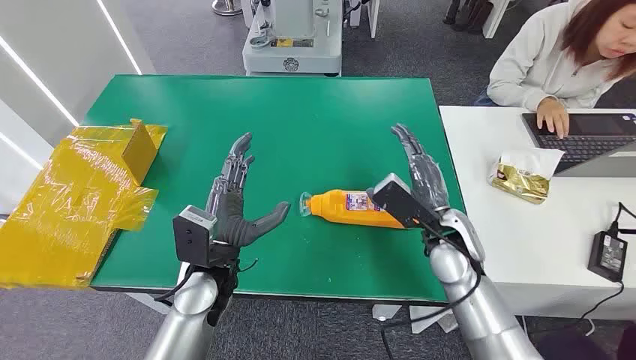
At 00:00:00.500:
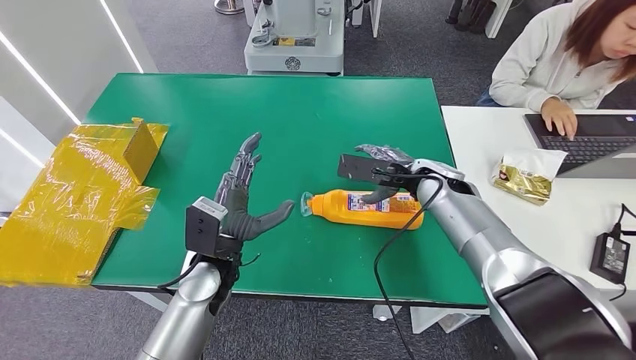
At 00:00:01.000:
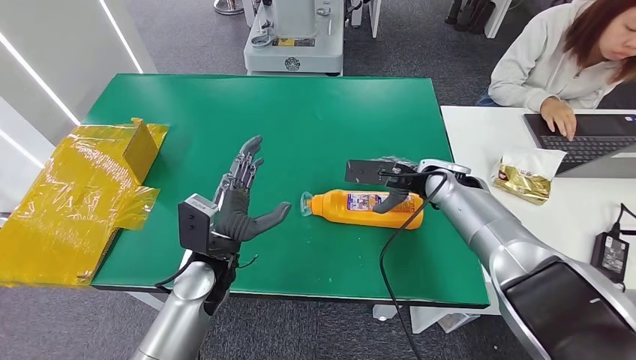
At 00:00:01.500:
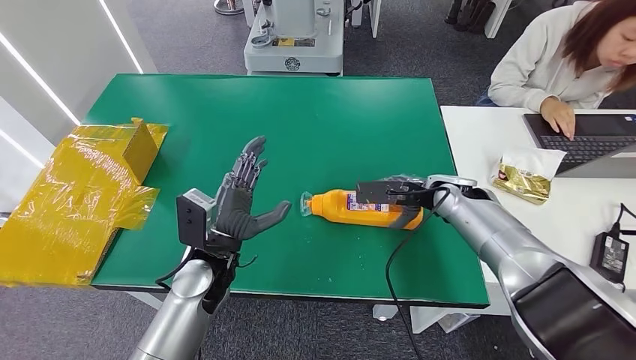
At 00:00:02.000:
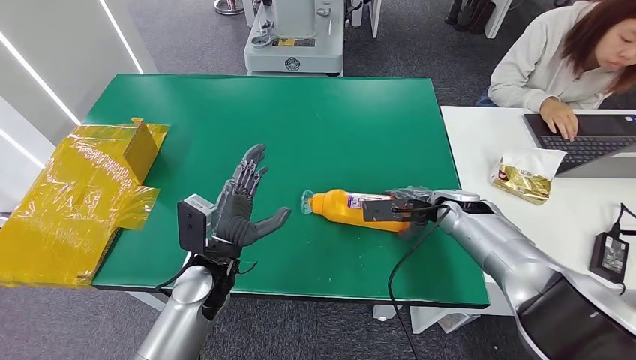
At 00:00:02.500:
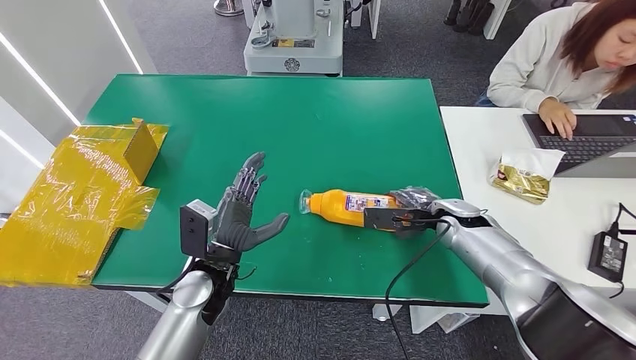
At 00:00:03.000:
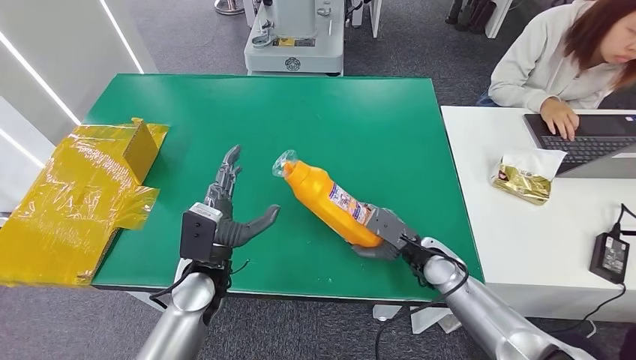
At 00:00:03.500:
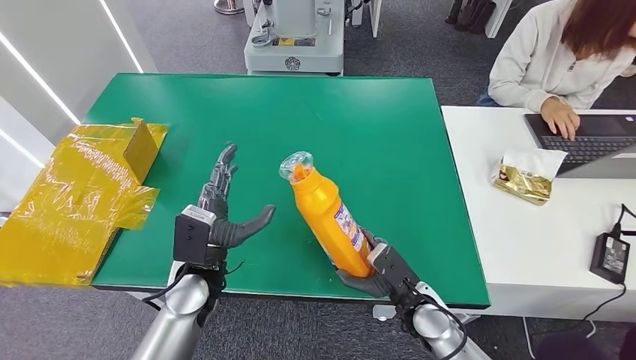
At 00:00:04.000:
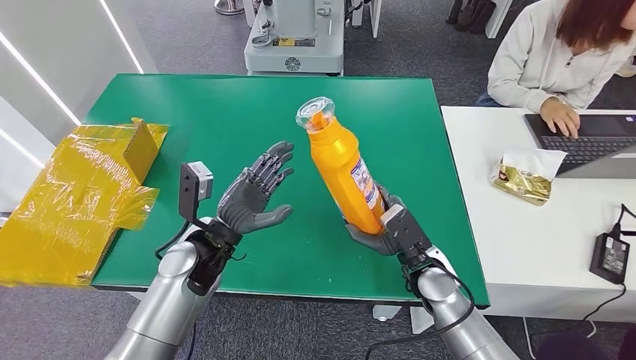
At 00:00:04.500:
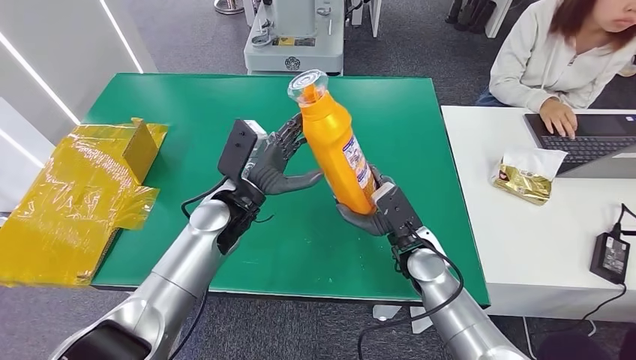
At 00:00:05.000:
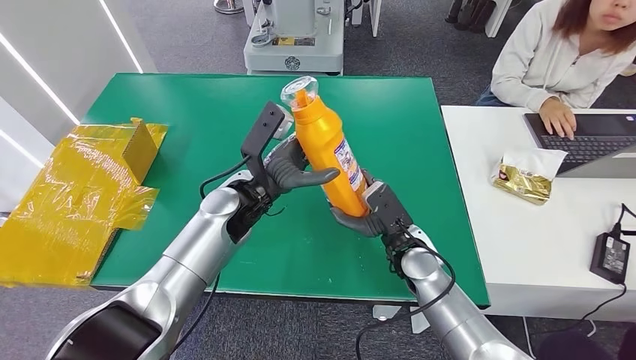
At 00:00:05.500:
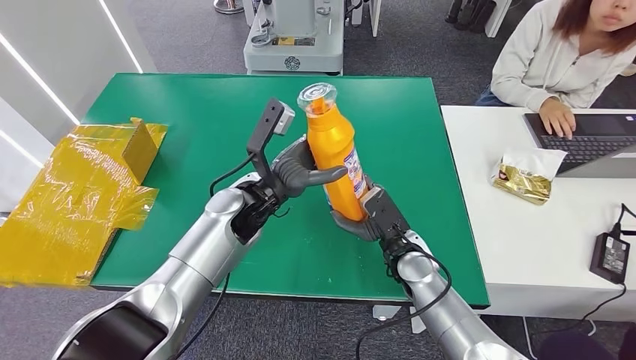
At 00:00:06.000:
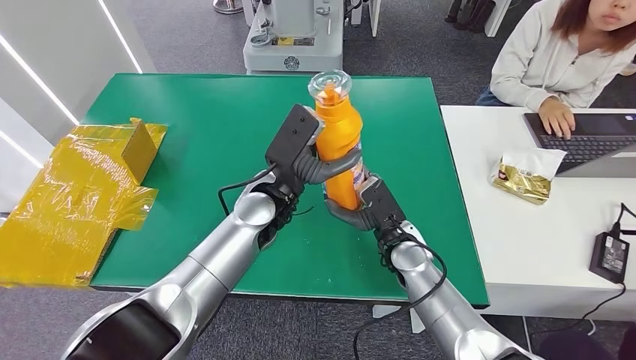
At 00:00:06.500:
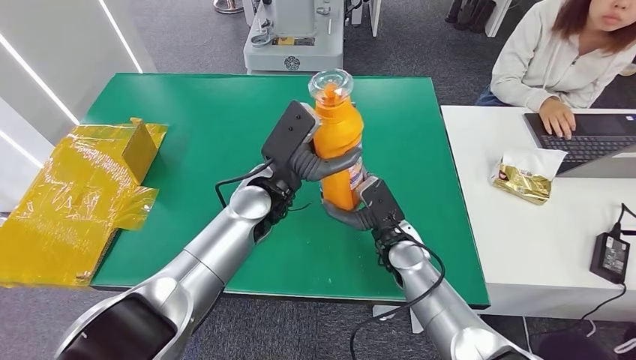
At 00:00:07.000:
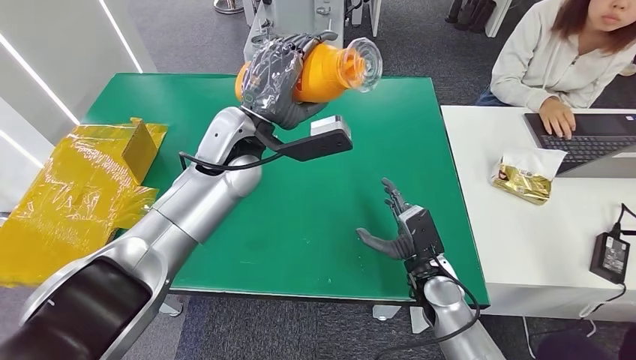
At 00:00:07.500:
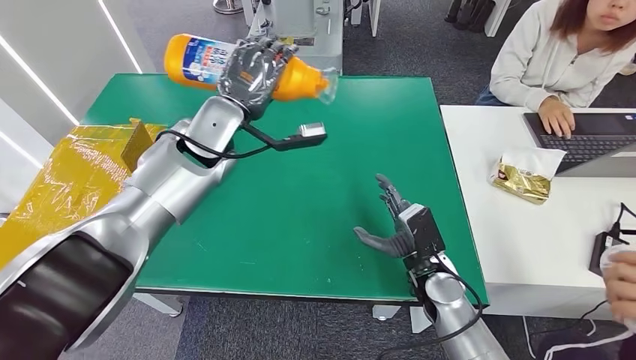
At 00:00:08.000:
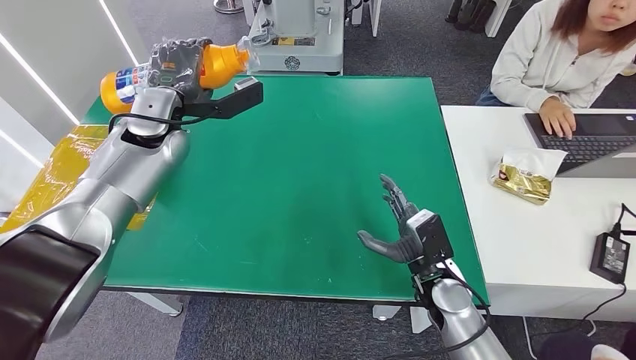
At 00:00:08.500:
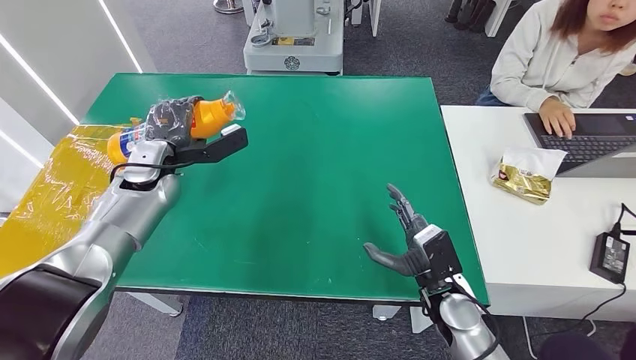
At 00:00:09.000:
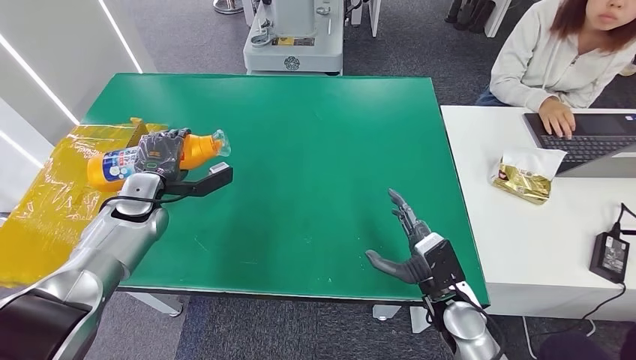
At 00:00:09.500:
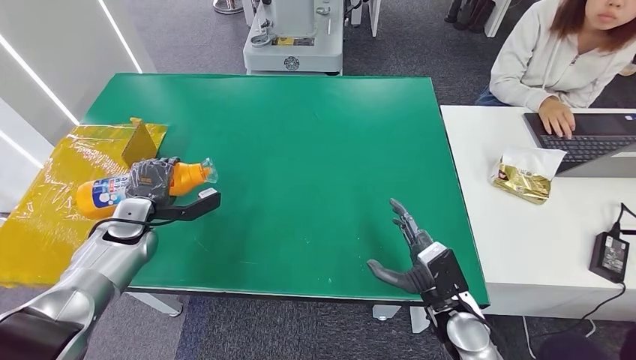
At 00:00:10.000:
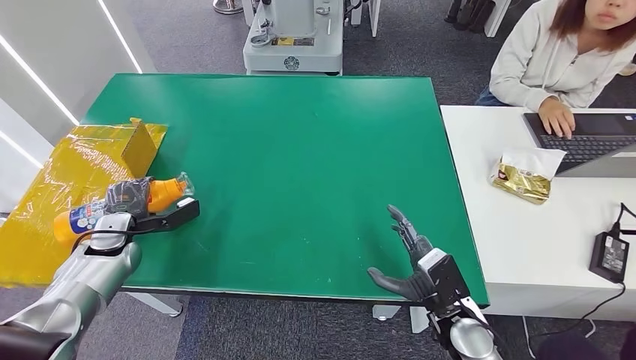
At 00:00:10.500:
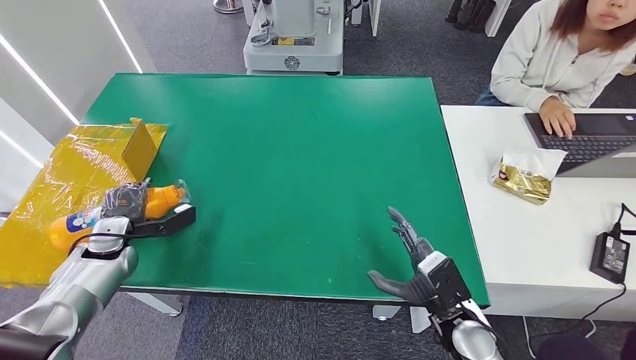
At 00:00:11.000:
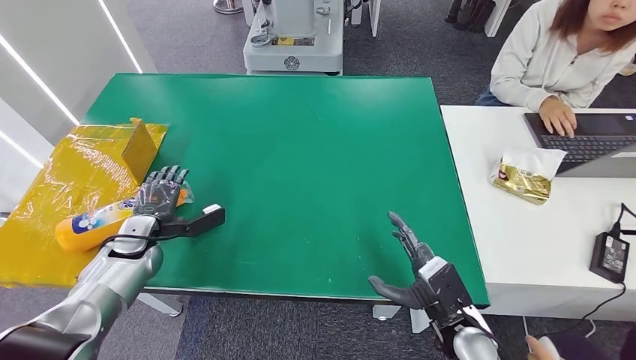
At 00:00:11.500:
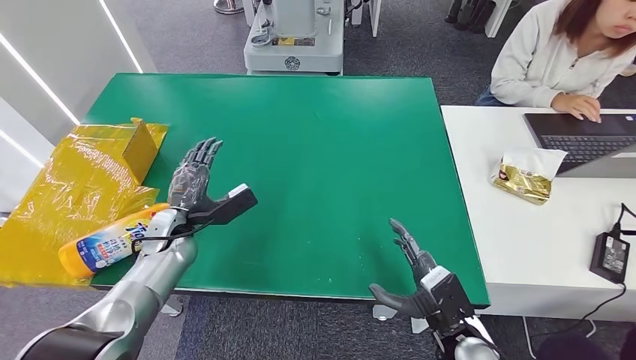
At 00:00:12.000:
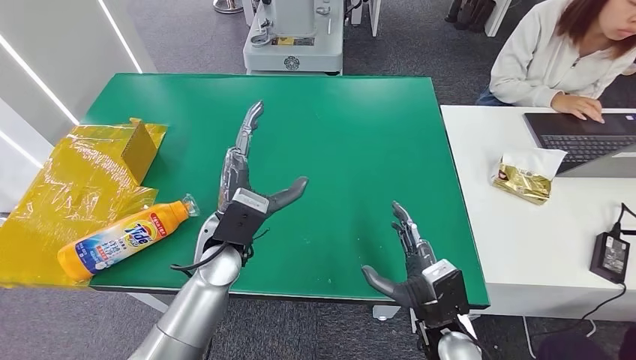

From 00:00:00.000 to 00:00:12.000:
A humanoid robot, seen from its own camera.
Step, from 00:00:00.000 to 00:00:04.500: Pick up the bottle from the table.
Step, from 00:00:05.500 to 00:00:12.000: Turn the bottle to the front side.
From 00:00:04.000 to 00:00:06.000: The right hand changes place by roughly 5 cm; the left hand goes about 15 cm to the right, upward and forward.
From 00:00:08.000 to 00:00:10.000: The right hand heads backward, covering approximately 5 cm; the left hand is displaced downward, to the left and backward by roughly 30 cm.
From 00:00:10.000 to 00:00:12.000: The left hand shifts some 30 cm to the right.
